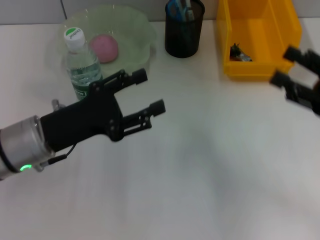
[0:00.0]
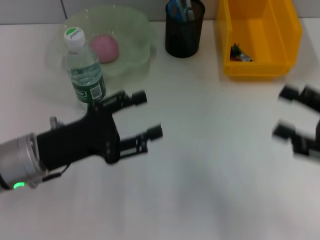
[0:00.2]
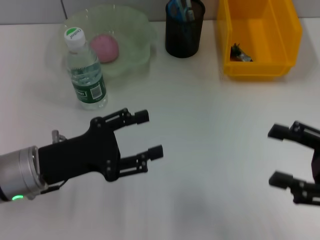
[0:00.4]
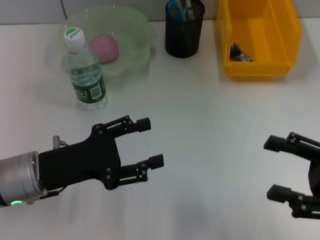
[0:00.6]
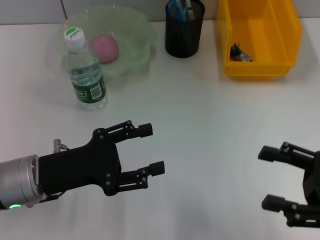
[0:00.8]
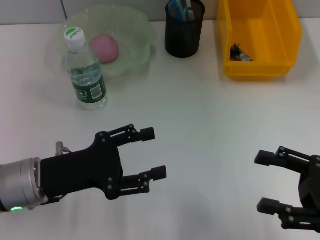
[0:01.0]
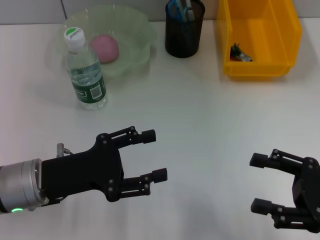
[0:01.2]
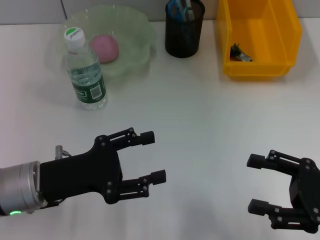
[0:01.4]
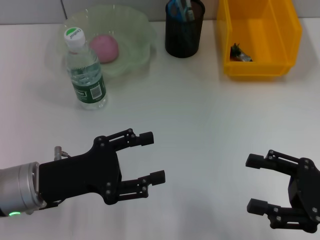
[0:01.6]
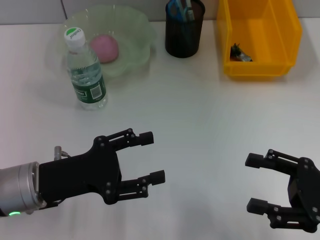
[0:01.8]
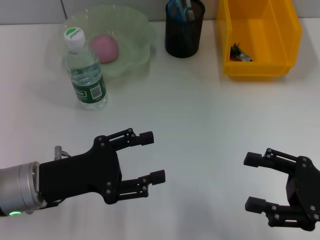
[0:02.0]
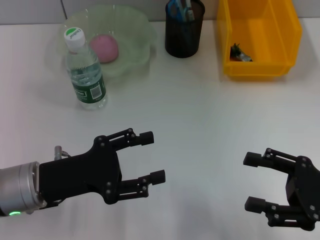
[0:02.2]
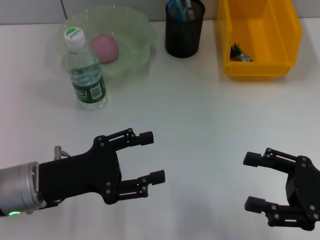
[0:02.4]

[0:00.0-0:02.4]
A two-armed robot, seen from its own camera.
0.0 to 1.2 s: The right gripper travels backward by about 5 cm.
1.2 to 2.4 s: The two grippers keep their place.

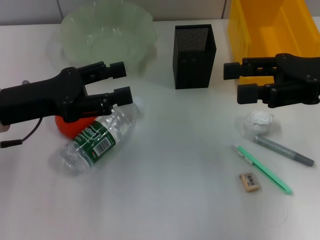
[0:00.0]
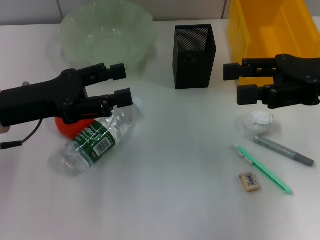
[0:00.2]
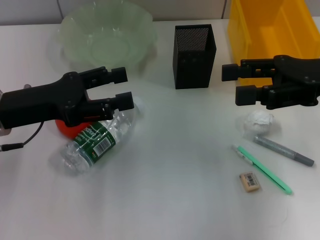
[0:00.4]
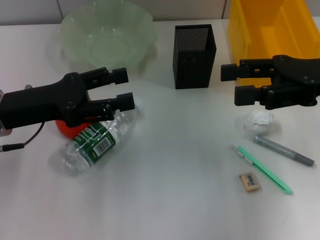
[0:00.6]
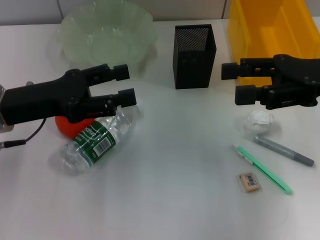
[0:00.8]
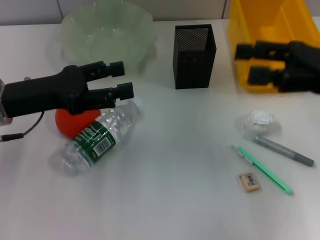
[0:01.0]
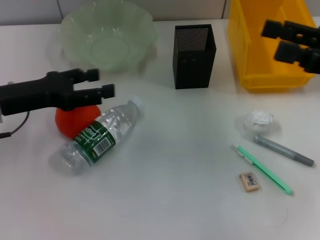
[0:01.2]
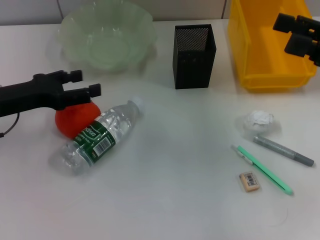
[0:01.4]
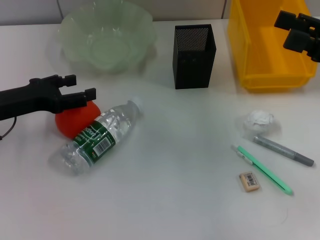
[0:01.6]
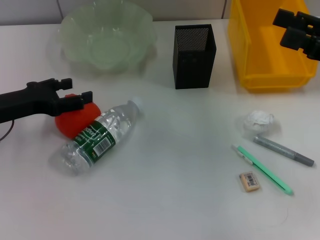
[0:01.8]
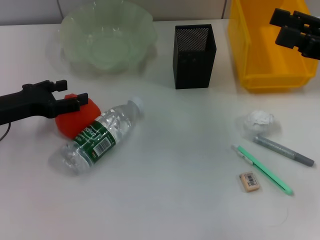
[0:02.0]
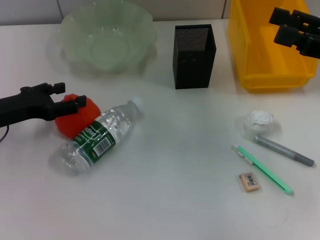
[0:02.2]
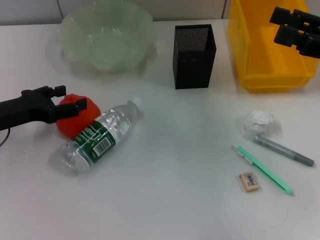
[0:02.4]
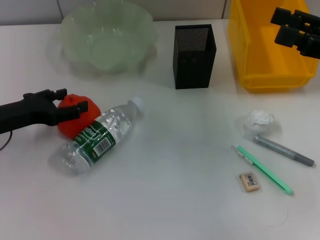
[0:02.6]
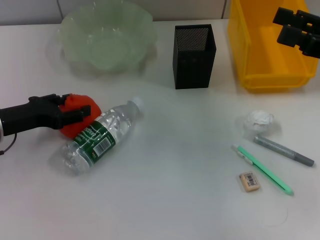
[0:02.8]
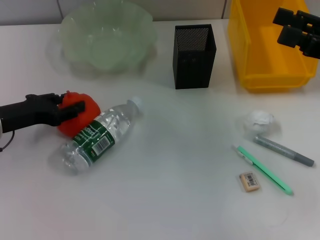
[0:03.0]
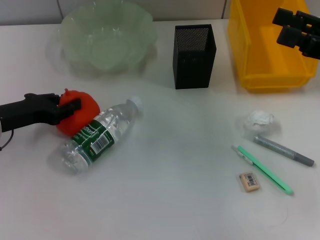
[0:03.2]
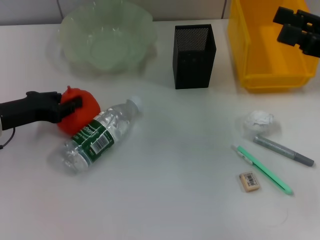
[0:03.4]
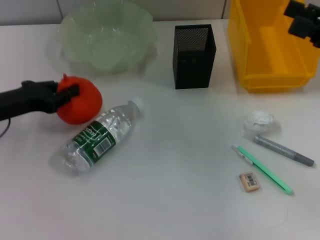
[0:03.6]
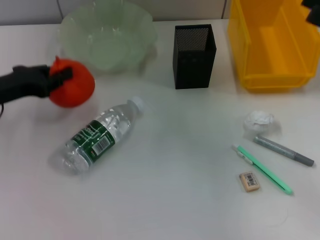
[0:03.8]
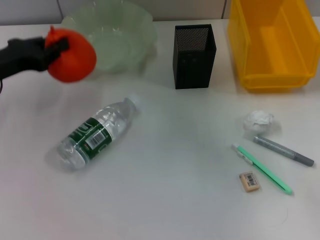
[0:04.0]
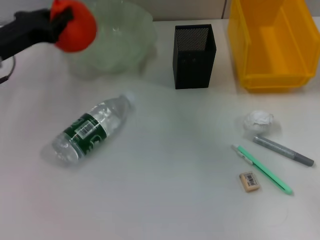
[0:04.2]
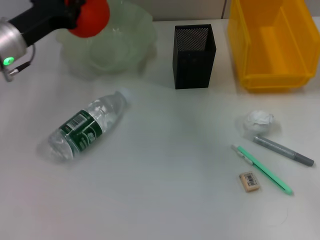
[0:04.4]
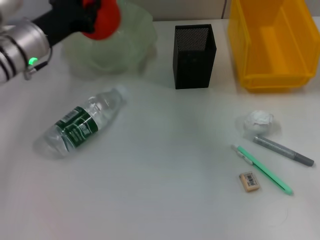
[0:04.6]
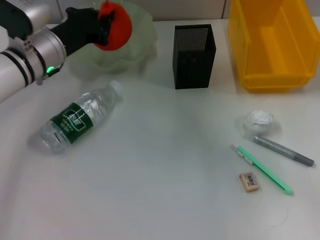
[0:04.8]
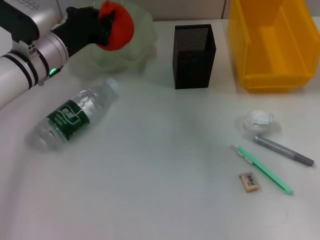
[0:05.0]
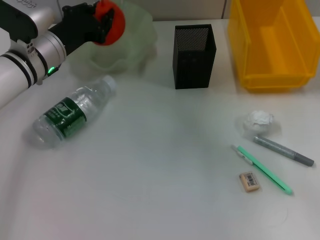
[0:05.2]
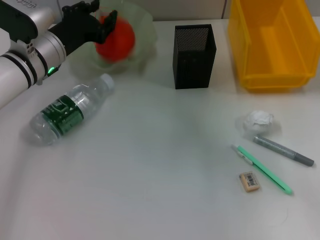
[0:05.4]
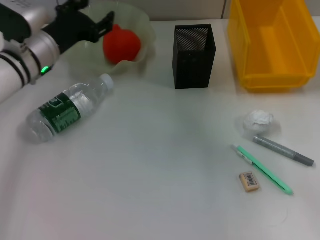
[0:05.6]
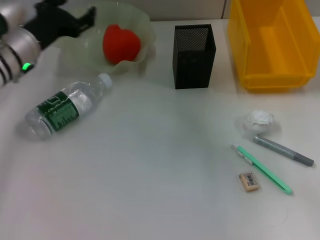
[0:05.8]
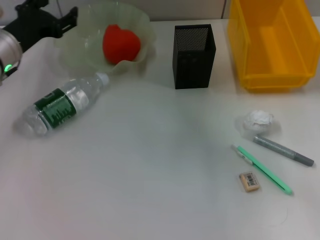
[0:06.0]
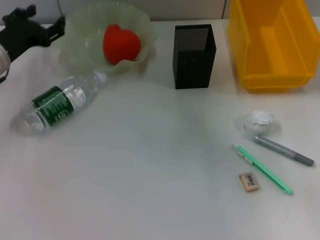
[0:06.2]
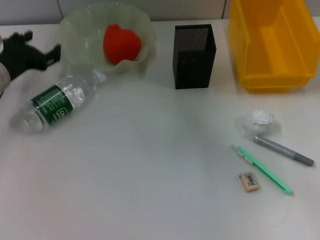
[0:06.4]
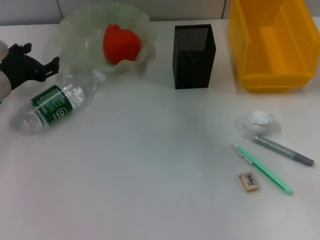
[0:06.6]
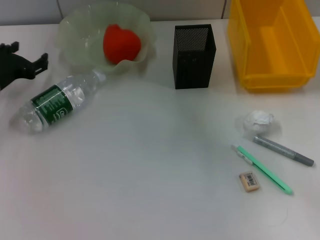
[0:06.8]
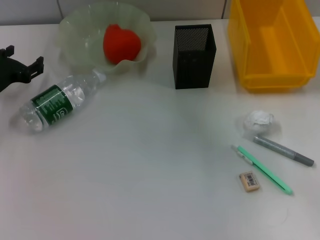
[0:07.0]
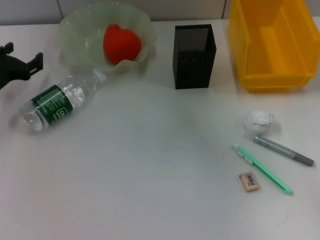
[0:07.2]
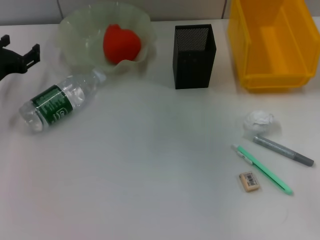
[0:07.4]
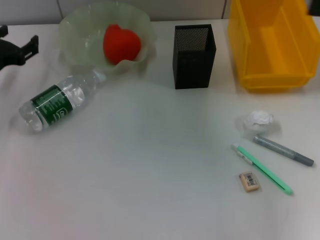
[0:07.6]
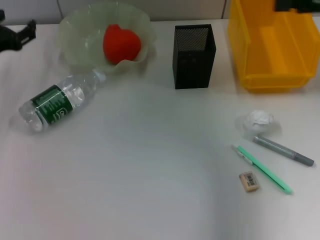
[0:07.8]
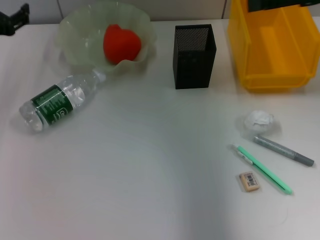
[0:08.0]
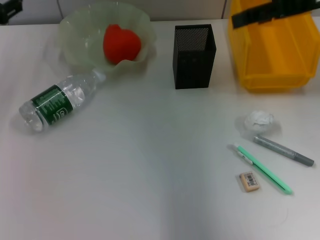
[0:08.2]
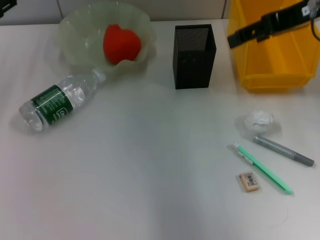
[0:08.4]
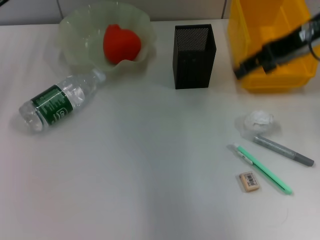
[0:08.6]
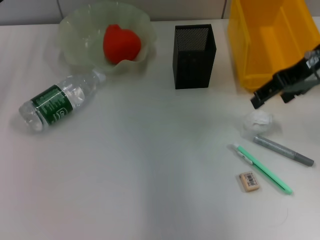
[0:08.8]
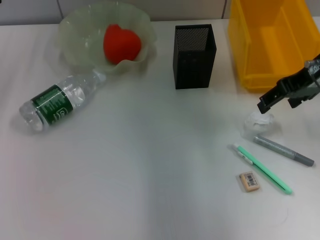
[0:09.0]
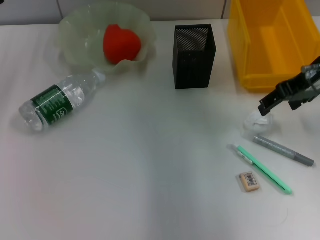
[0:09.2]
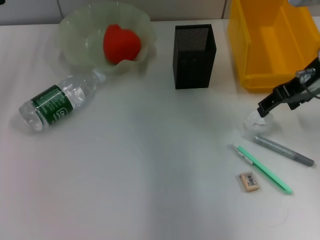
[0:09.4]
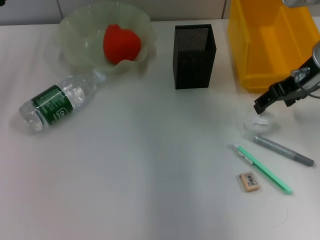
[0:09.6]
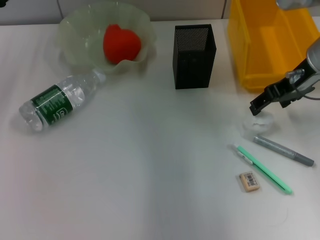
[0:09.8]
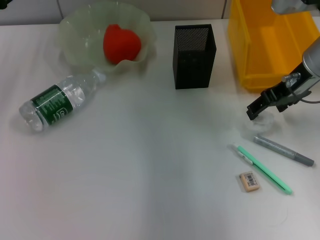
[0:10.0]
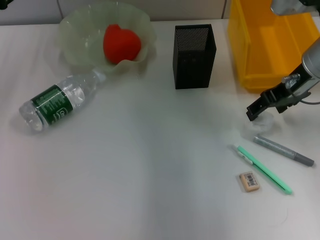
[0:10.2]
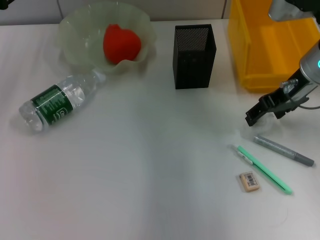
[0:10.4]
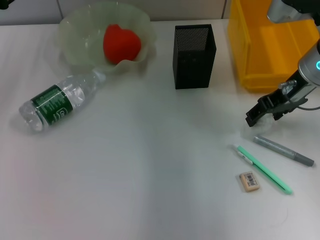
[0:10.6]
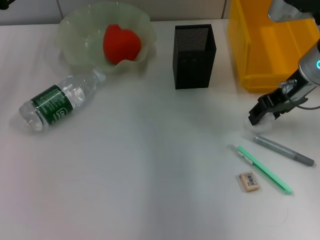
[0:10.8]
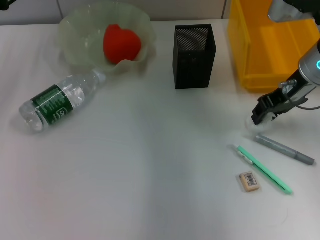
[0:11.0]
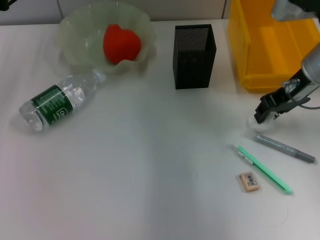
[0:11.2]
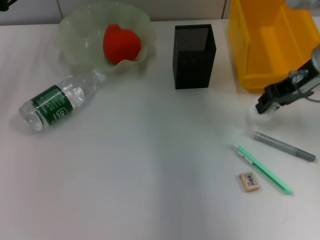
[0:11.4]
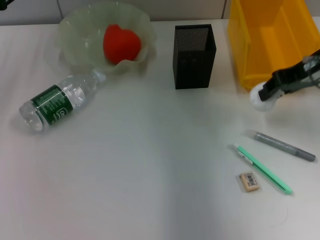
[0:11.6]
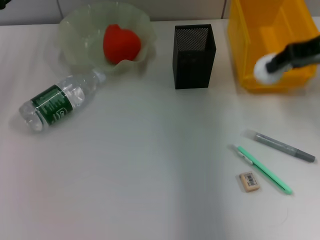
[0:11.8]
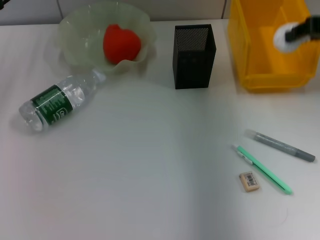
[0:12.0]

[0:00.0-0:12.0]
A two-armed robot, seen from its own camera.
Step, 0.0 to 3.4 s: Grab the orange with the left hand.
Step, 3.6 to 5.4 s: Place the orange into the fruit bowl with the left hand.
Step, 5.6 to 11.0 s: Grab the paper ball with the right hand.
0.0 to 1.6 s: The right gripper changes place by some 5 cm, while the left gripper changes place by roughly 5 cm.
1.6 to 3.0 s: The grippers move only a little.
3.0 to 4.4 s: The left gripper moves forward, upward and to the right, approximately 10 cm, and closes its fingers.
4.4 to 6.0 s: The left gripper opens its fingers.
6.0 to 7.6 s: The right gripper goes some 10 cm upward. Meanwhile the left gripper is displaced to the left by some 5 cm.
7.6 to 9.0 s: The left gripper is displaced upward by roughly 5 cm; the right gripper moves to the left and forward, some 10 cm.
9.0 to 10.4 s: The right gripper goes roughly 5 cm downward.
10.4 to 12.0 s: The right gripper is displaced to the right and upward by approximately 10 cm, and closes up.

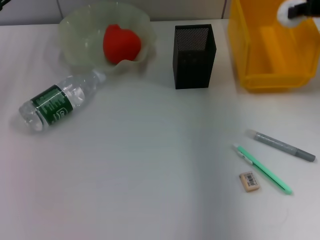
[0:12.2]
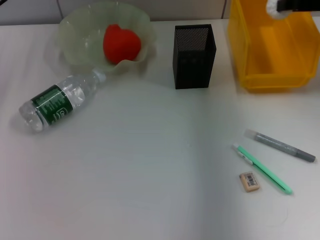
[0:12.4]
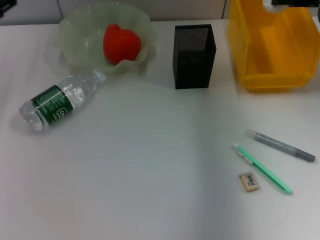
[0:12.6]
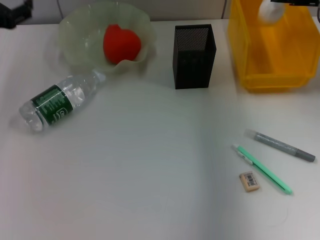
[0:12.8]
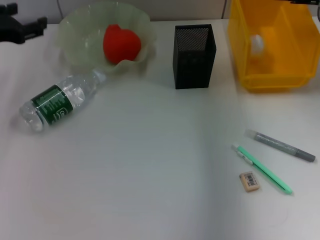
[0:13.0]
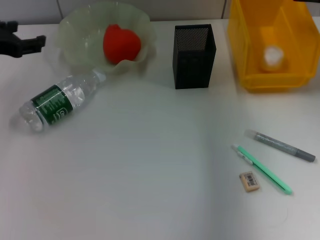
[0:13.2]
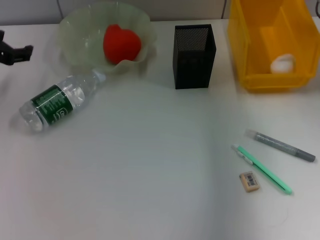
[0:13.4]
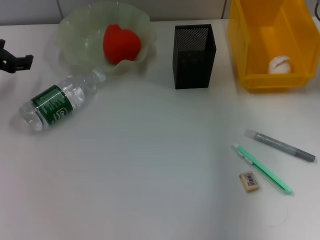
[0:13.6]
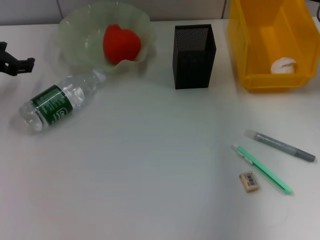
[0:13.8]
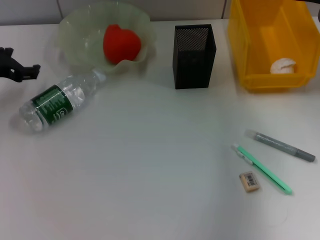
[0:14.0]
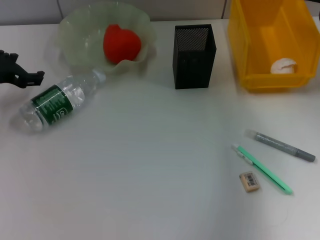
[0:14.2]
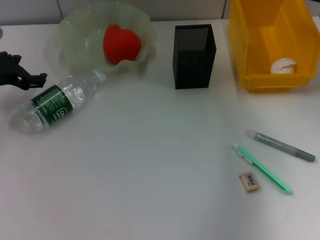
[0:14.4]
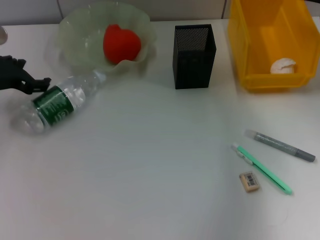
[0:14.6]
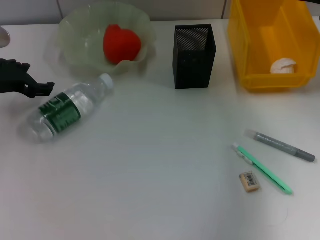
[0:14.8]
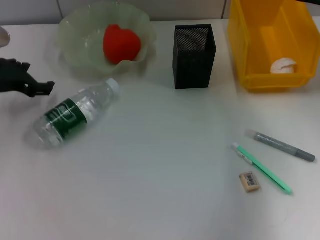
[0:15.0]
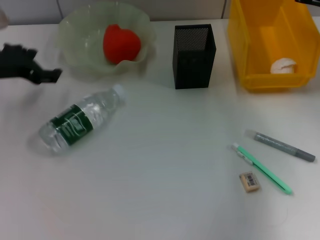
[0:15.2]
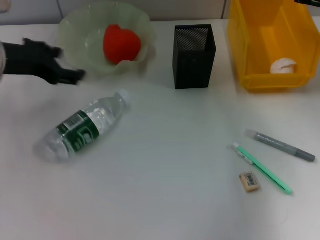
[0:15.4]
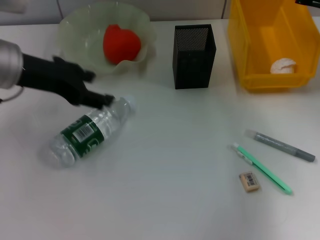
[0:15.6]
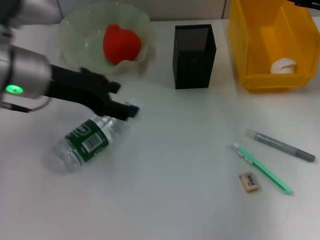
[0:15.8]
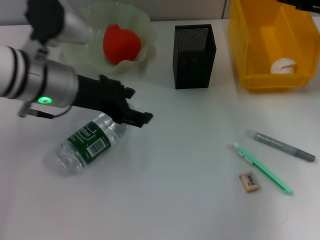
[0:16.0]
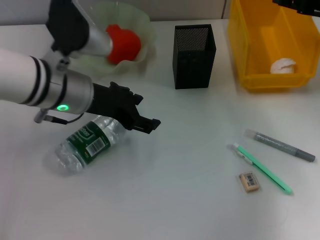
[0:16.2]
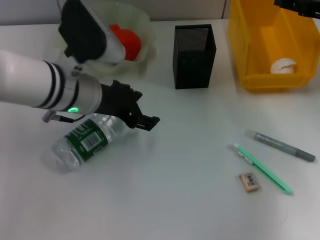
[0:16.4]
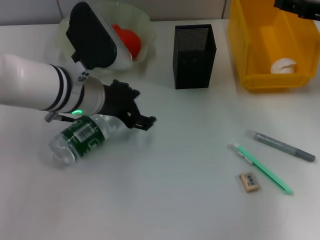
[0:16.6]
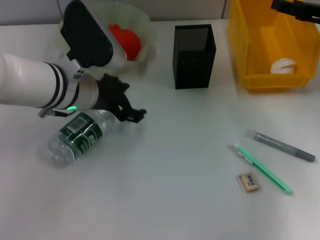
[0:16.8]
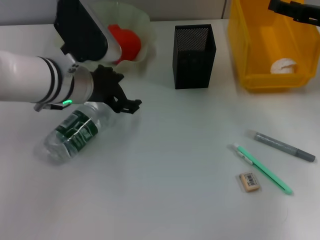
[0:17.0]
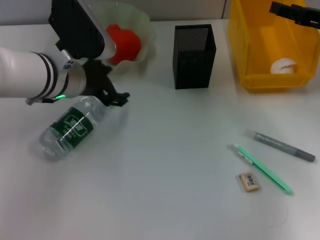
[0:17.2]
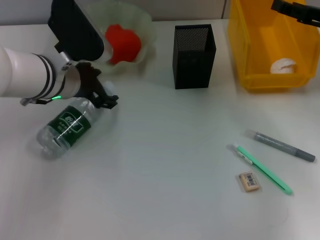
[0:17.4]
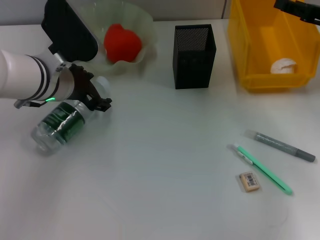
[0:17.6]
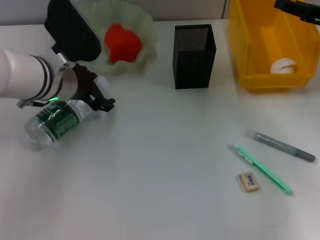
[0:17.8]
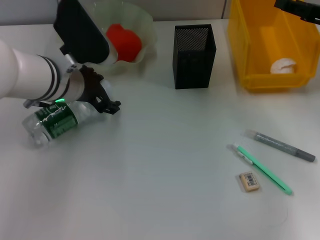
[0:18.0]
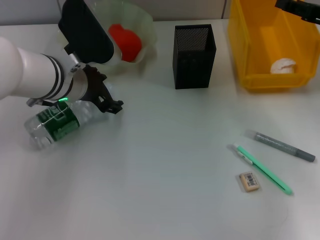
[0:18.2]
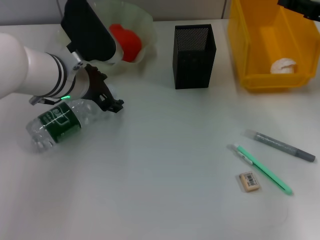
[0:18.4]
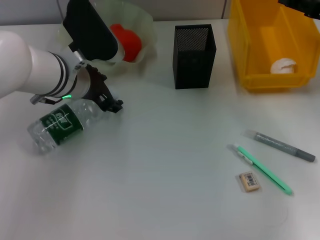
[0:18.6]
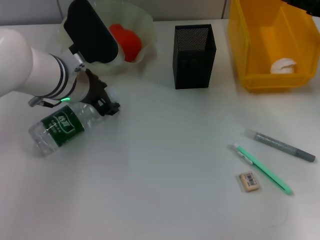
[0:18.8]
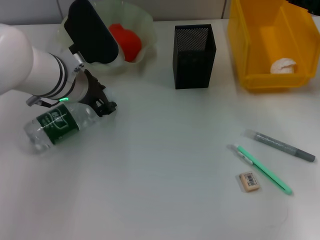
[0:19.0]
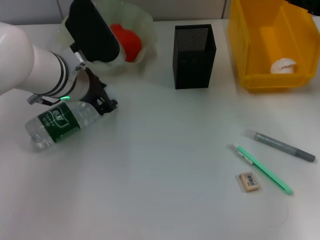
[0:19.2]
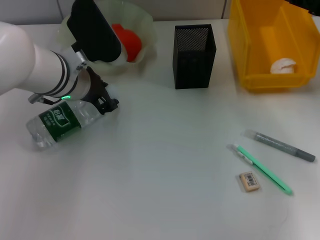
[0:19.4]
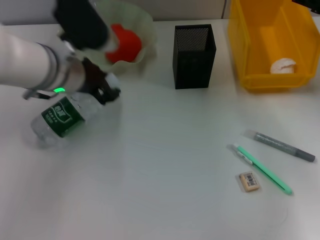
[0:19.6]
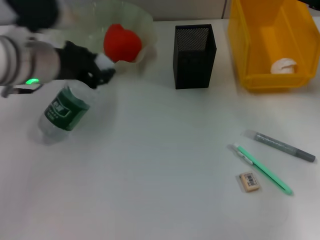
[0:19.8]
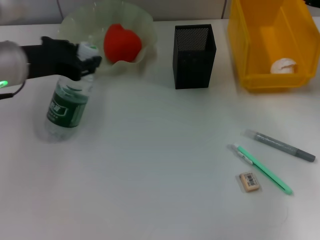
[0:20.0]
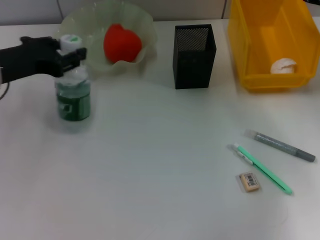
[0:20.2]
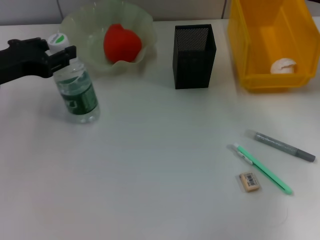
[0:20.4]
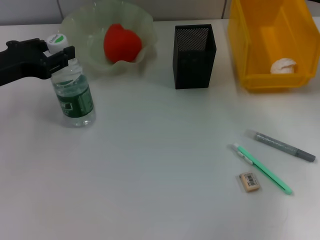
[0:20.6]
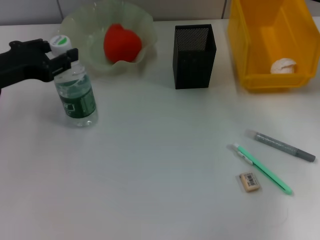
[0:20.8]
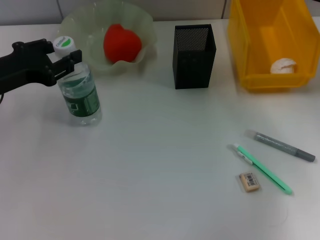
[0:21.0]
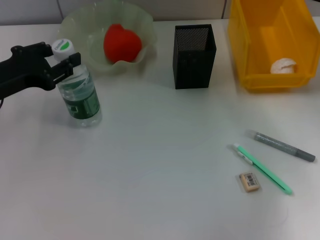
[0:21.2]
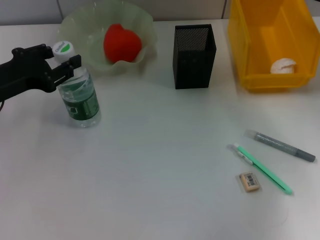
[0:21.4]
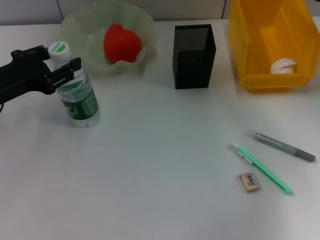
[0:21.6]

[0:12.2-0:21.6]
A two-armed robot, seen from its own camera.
Step, 12.2 to 13.6 s: Place the paper ball into the trash can with the right hand.
Step, 13.8 to 18.8 s: Grab the water bottle with the right hand.
12.2 to 13.8 s: The right gripper opens its fingers.
13.8 to 15.4 s: The left gripper moves to the right and upward, some 10 cm.
15.4 to 17.0 s: The left gripper goes about 10 cm to the right and downward.
17.0 to 18.4 s: The grippers stay close to where they were, moving slightly.
18.4 to 20.0 s: The left gripper moves to the left, some 10 cm, and closes up.
20.0 to 21.6 s: The left gripper heads to the left, covering about 5 cm.
